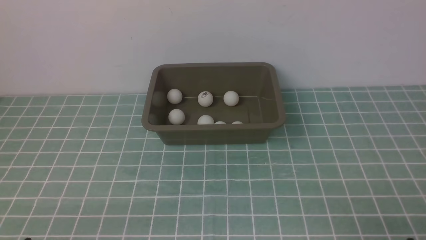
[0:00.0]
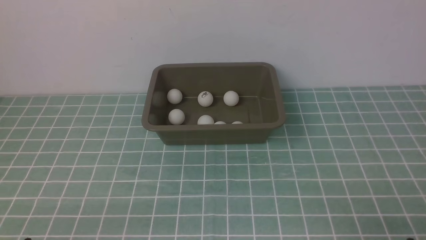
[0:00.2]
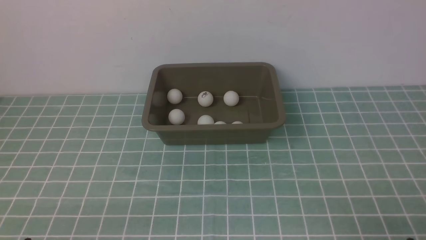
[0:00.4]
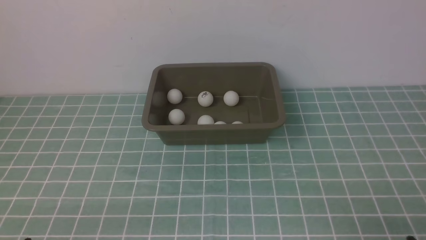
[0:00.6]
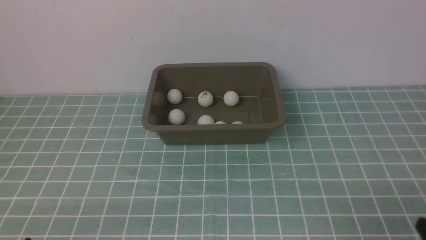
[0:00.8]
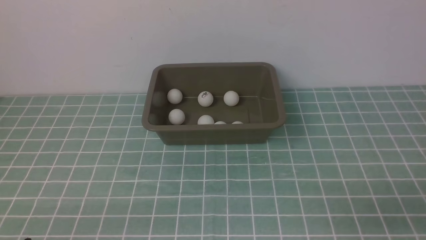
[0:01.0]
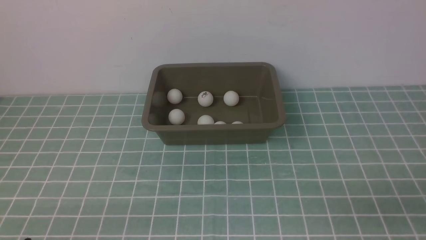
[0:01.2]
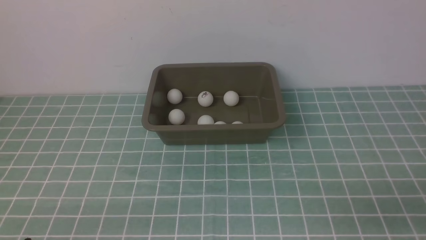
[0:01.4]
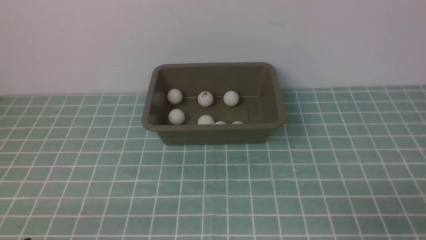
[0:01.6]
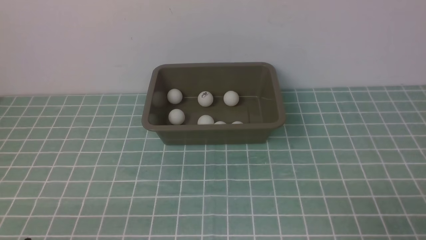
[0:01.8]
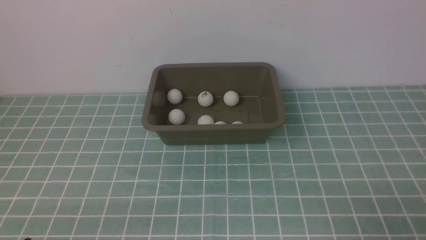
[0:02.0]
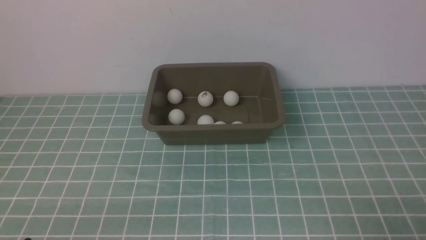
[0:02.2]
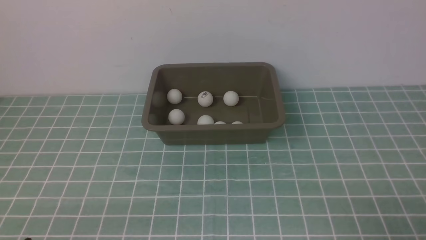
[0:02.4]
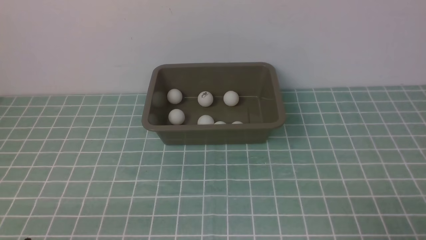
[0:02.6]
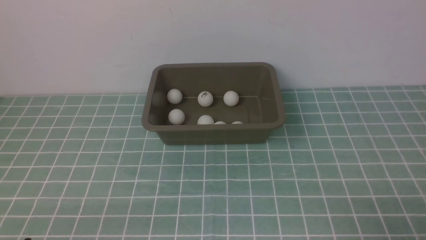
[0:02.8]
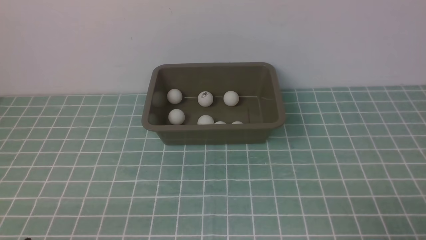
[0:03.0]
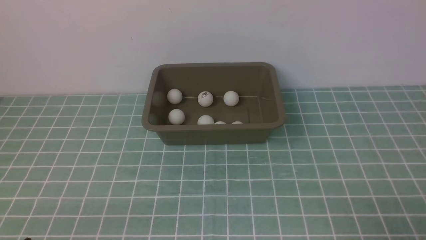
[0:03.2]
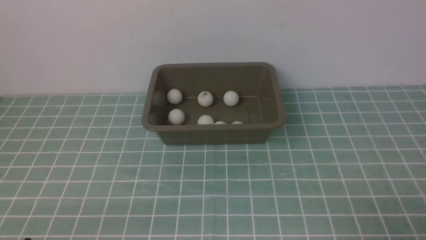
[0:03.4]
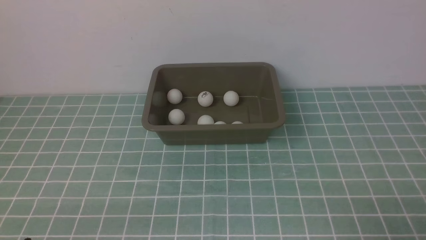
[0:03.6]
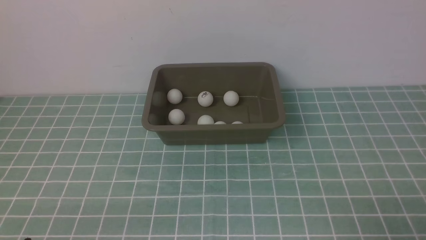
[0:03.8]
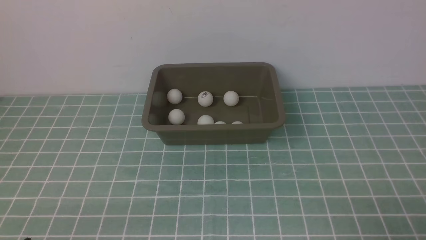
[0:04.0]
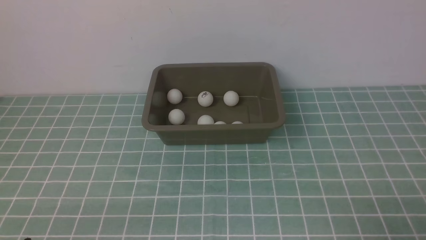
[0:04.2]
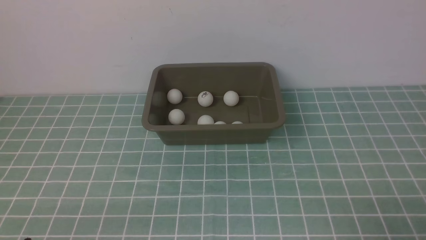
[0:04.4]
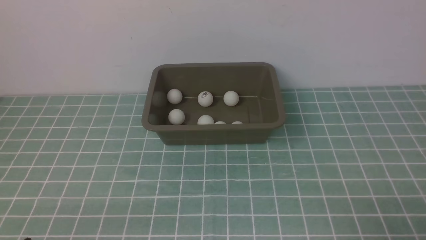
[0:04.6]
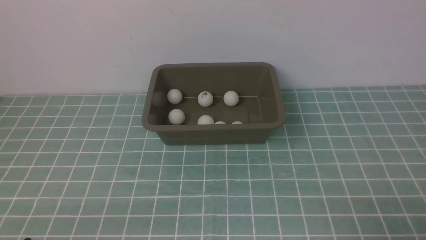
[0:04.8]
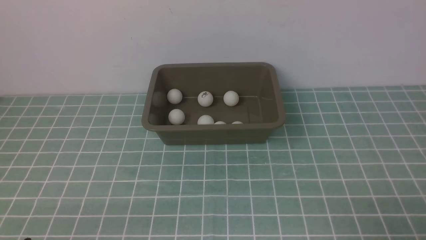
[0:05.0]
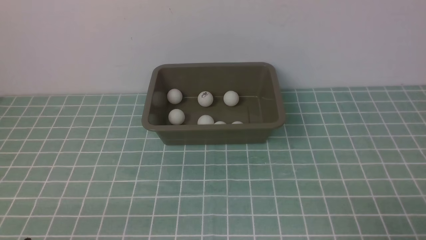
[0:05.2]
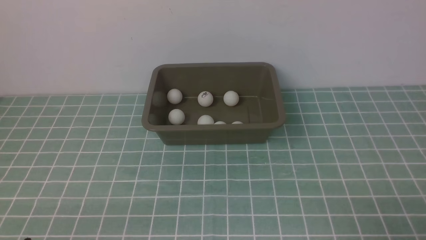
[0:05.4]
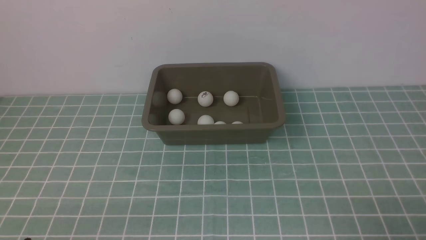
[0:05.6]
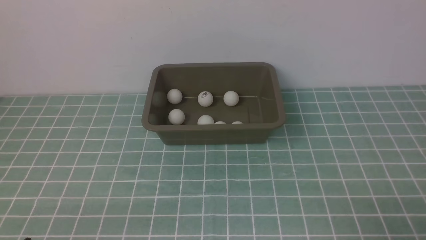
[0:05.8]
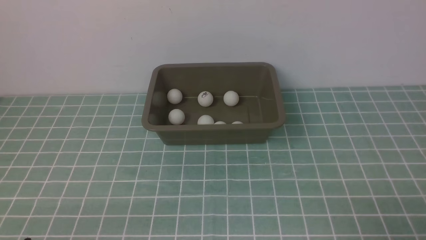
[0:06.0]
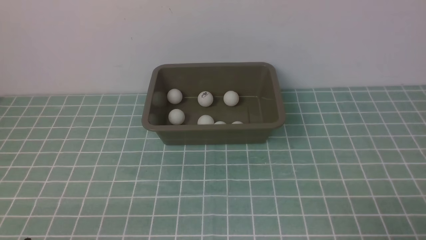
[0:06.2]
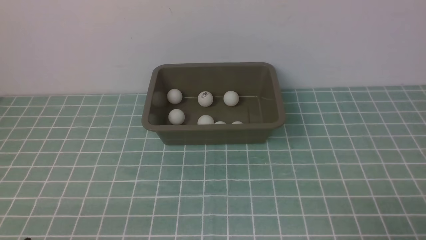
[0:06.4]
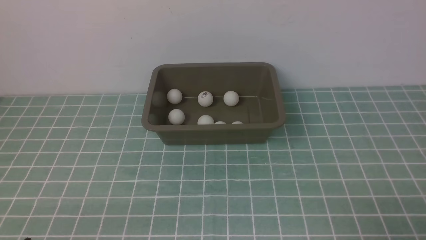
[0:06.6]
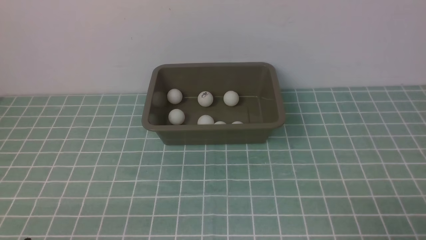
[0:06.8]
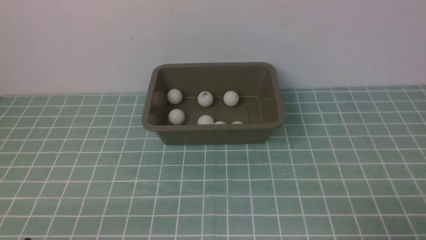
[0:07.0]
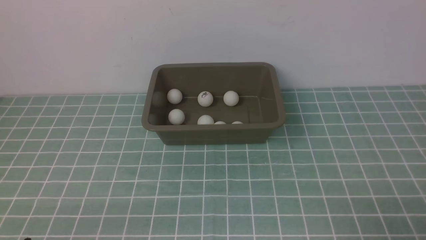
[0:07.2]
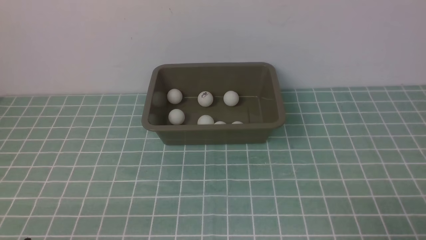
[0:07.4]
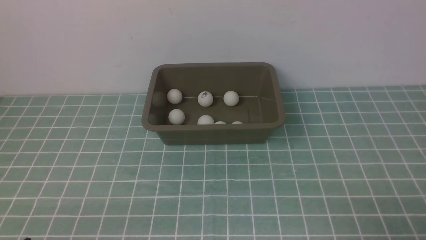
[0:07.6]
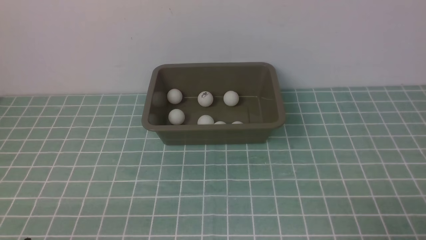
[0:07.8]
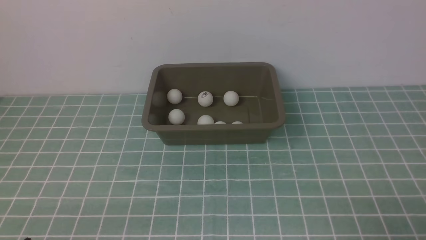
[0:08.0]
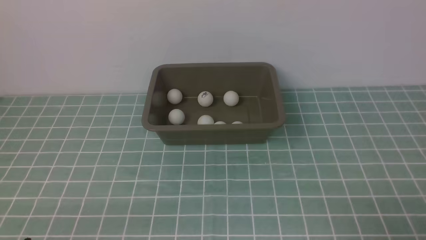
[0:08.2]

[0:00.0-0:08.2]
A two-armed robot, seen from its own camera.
0:01.6 to 0:08.2: Both grippers stay about where they are.
